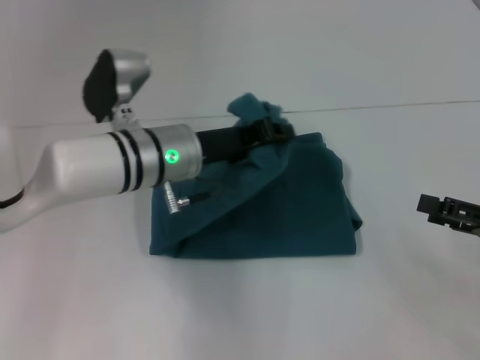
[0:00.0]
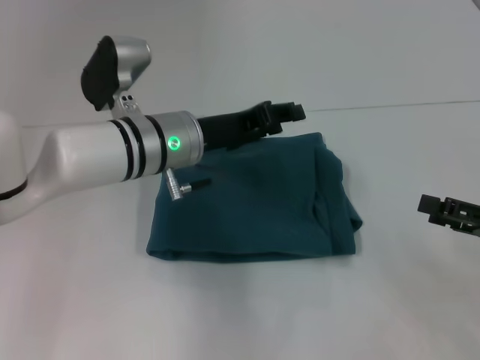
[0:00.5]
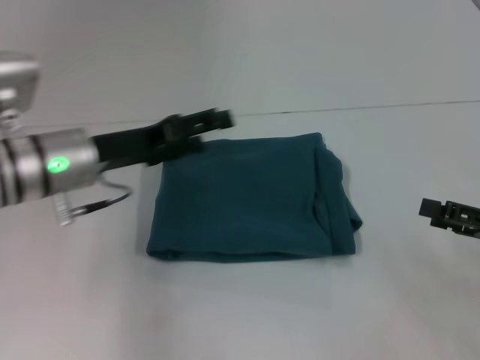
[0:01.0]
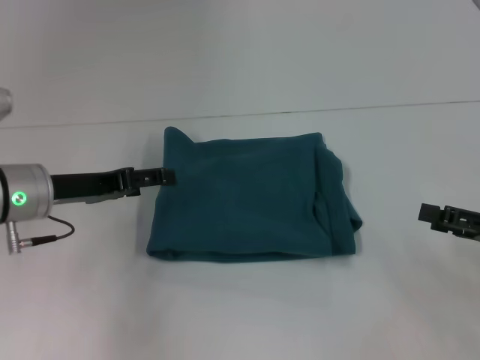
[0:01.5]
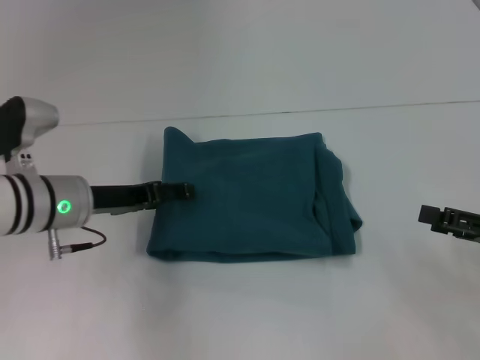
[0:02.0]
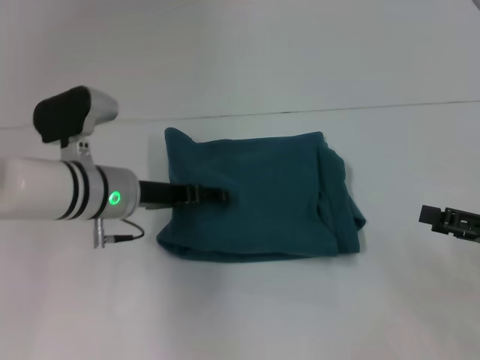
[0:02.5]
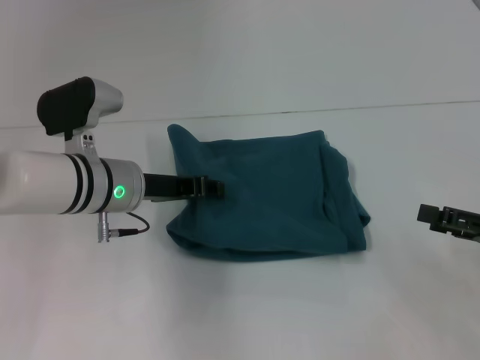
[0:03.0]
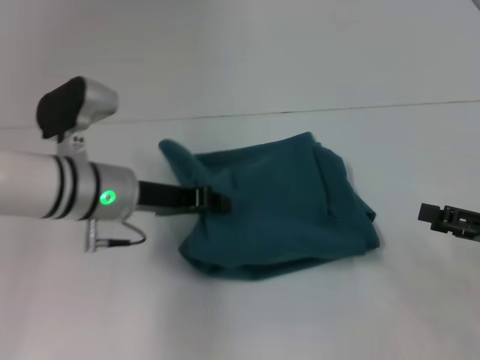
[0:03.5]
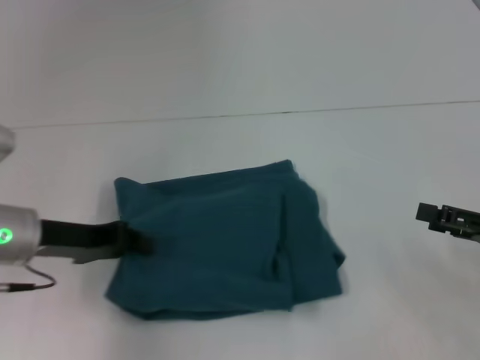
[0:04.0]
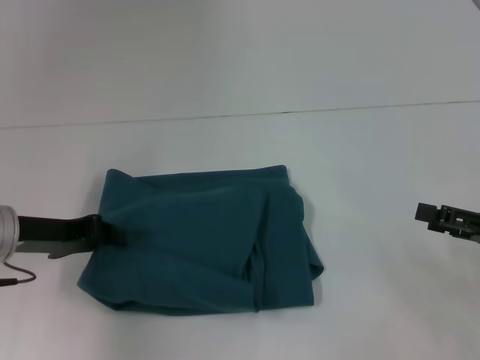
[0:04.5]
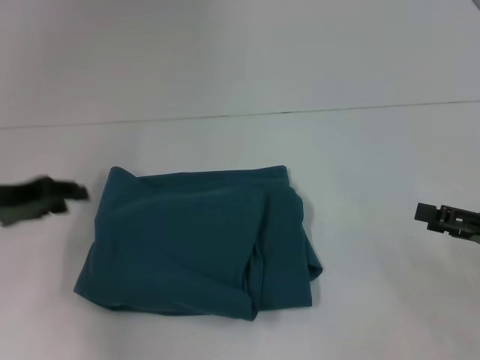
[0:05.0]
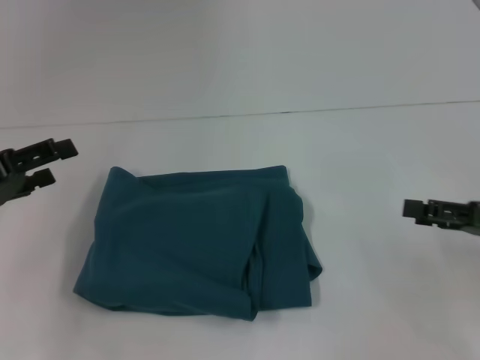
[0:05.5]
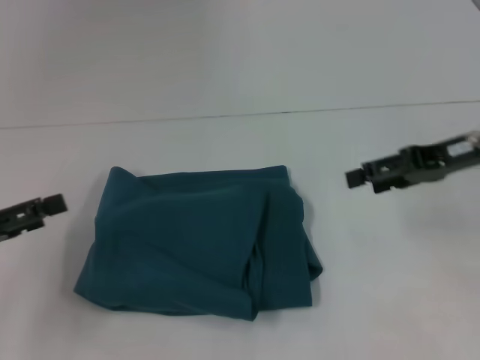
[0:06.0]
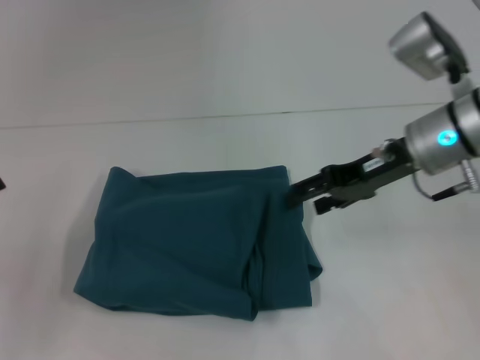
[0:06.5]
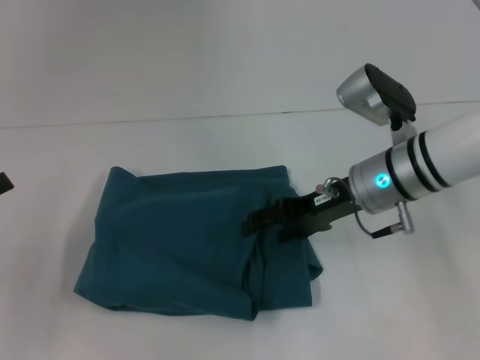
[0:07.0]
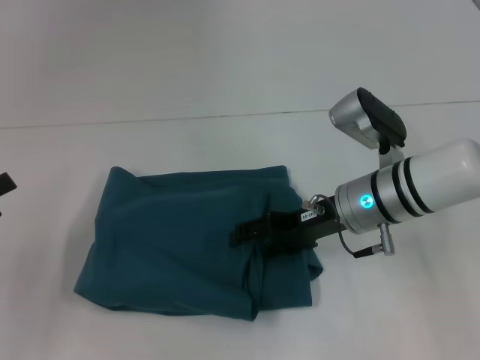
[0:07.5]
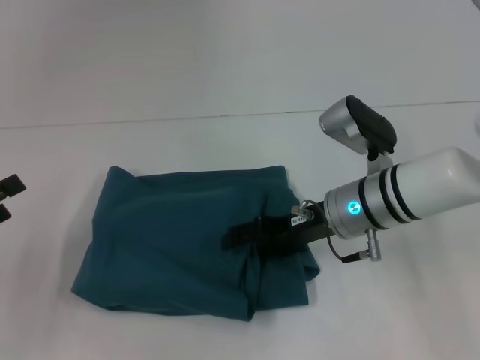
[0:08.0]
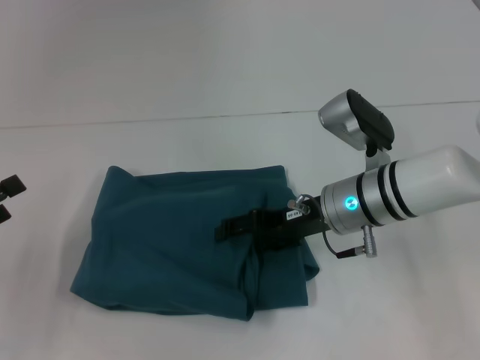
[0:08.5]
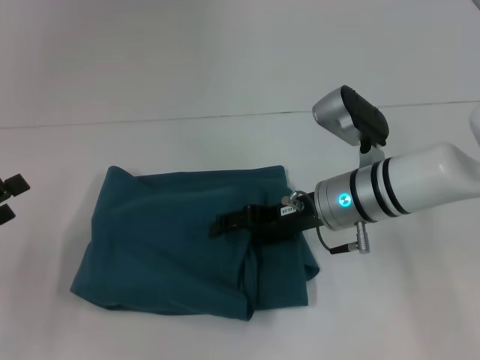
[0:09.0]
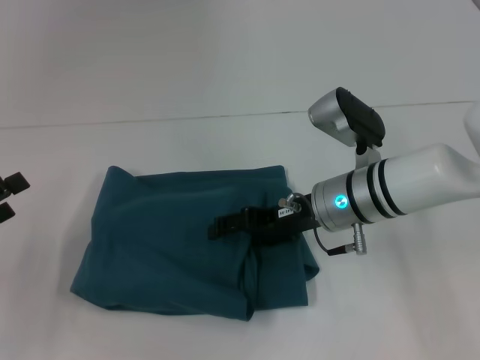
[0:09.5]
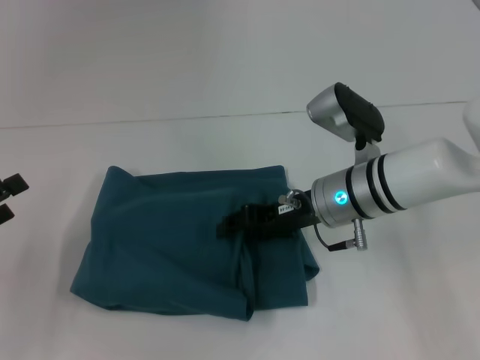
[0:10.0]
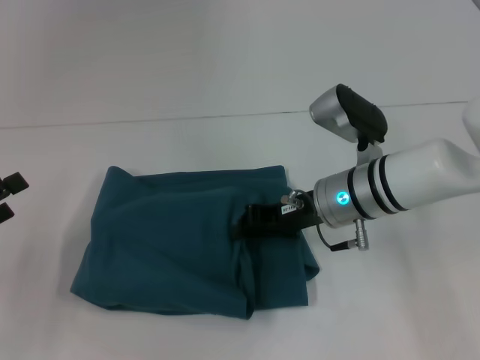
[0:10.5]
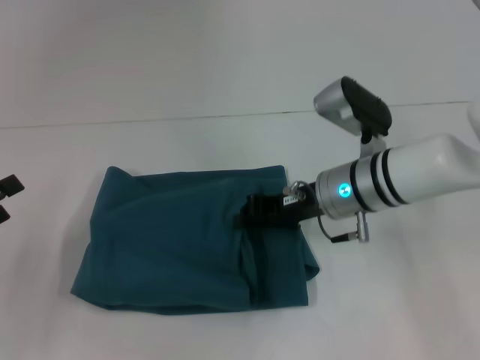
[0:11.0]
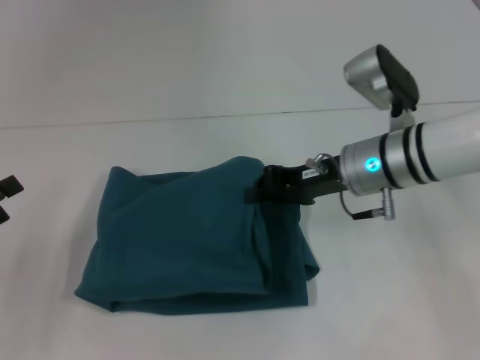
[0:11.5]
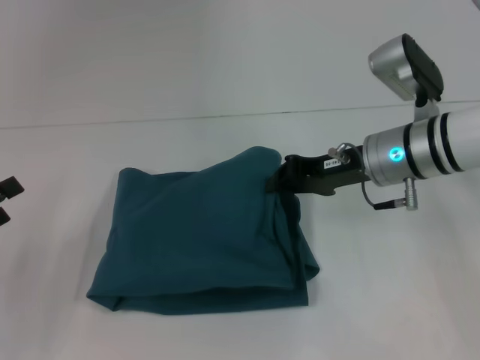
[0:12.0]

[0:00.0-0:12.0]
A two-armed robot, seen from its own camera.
0:00.0 to 0:02.0: The left gripper shifts approximately 10 cm to the left, and opens its fingers.
0:02.0 to 0:04.0: The left gripper changes place by about 5 cm, and closes.
0:04.0 to 0:06.0: The left gripper shifts some 10 cm to the left and backward, and opens up; the right gripper moves forward, upward and to the left, approximately 15 cm.
0:06.0 to 0:08.0: The right gripper shifts roughly 20 cm to the left and downward.
0:08.0 to 0:10.0: The right gripper closes its fingers.
0:10.0 to 0:12.0: The right gripper heads to the right, covering some 5 cm, and closes its fingers.

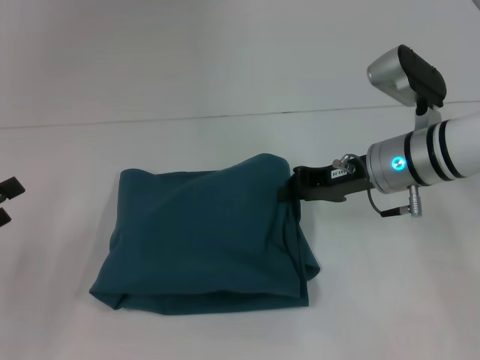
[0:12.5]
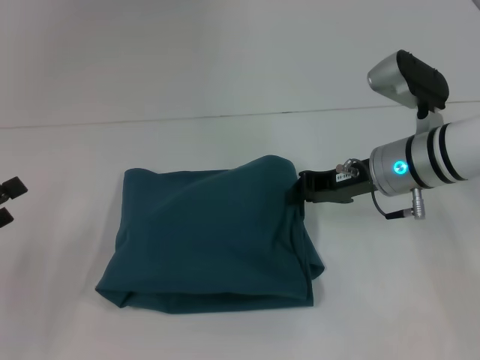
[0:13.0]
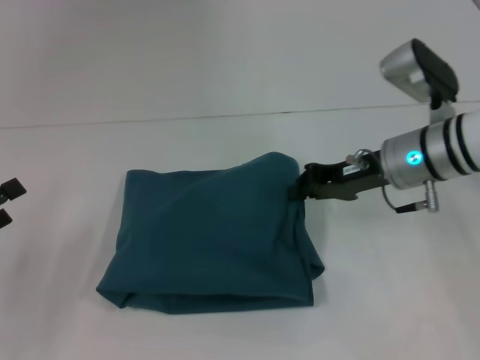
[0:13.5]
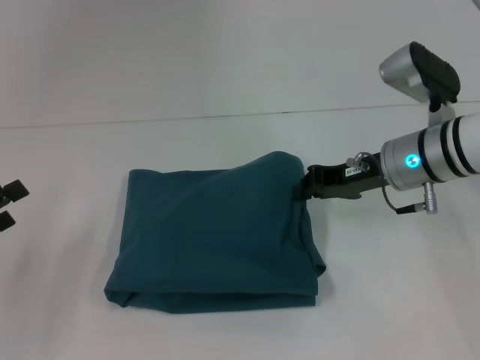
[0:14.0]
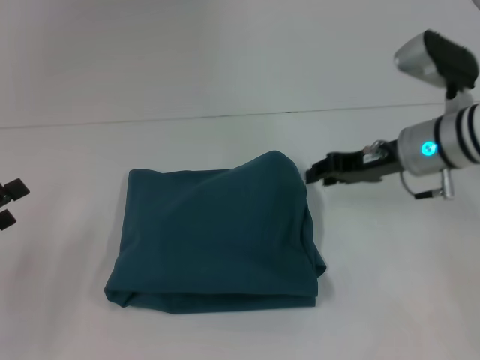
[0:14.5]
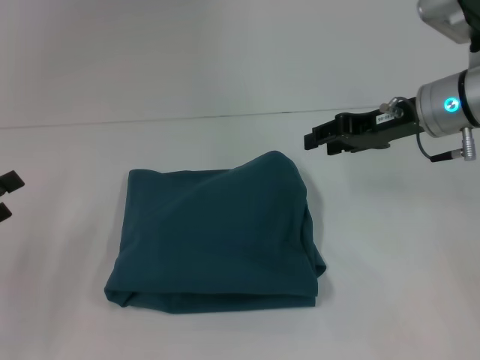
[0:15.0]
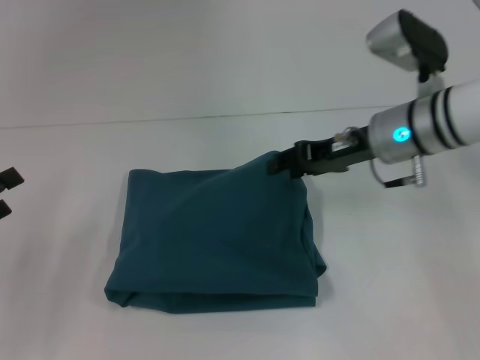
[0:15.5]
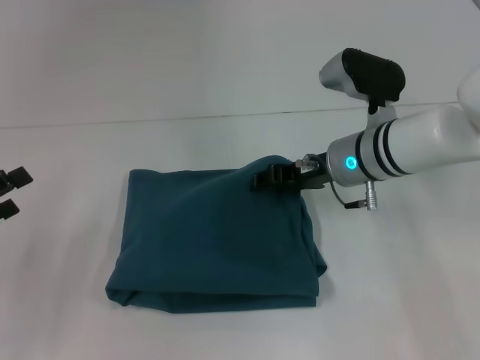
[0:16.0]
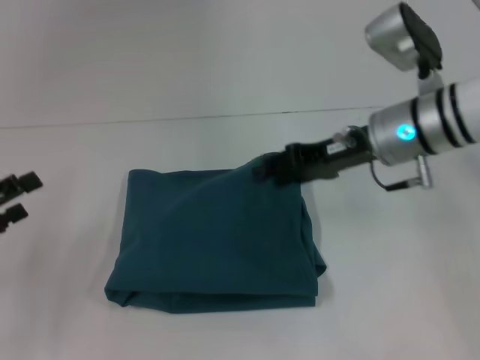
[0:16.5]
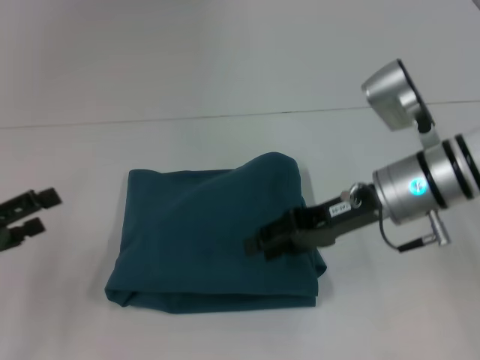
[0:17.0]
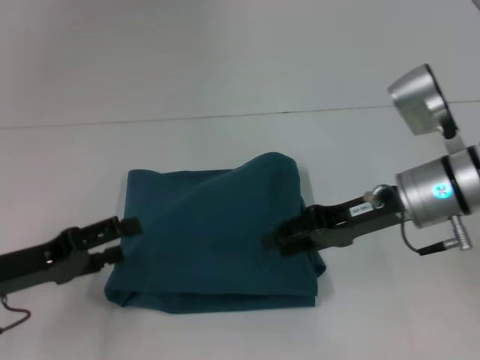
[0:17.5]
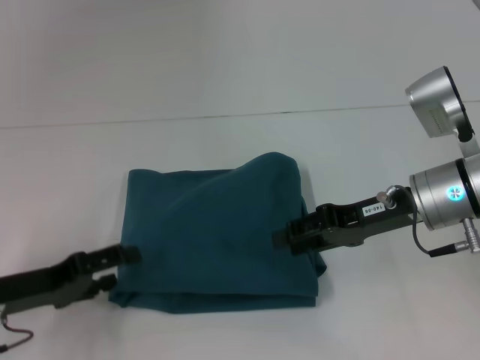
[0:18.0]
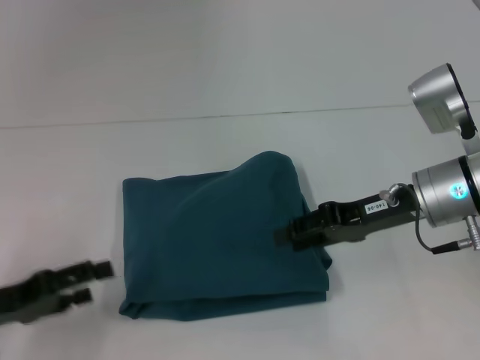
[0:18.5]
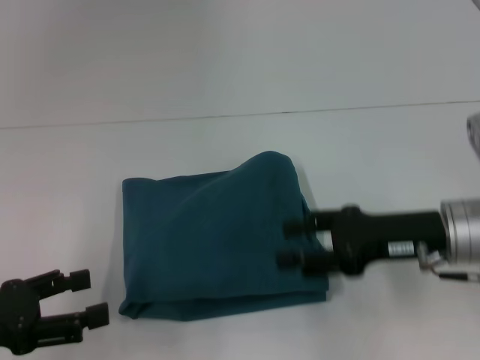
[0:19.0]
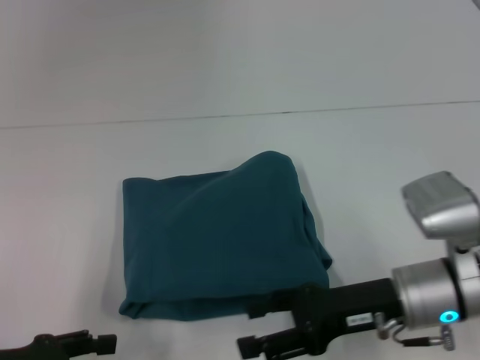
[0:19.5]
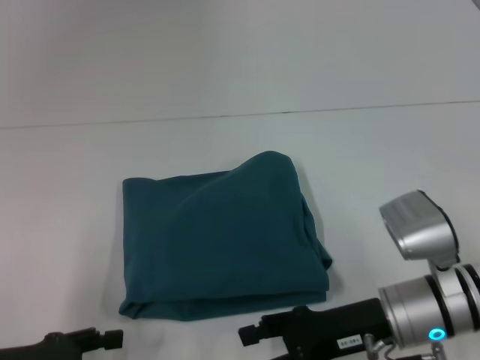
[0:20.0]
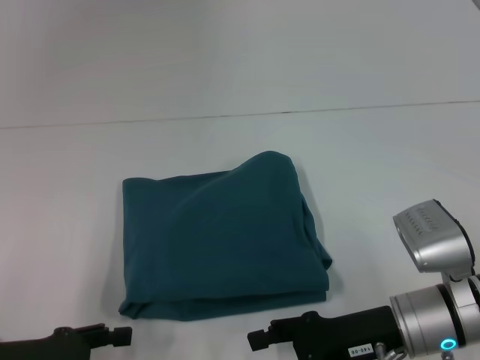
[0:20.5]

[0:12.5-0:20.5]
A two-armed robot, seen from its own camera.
0:12.5 to 0:14.5: The grippers move only a little.
0:14.5 to 0:16.5: The right gripper opens.
0:16.5 to 0:18.5: The right gripper is displaced backward by some 5 cm; the left gripper shifts by some 5 cm.
0:18.5 to 0:20.5: The right gripper is displaced backward and downward by approximately 10 cm.
